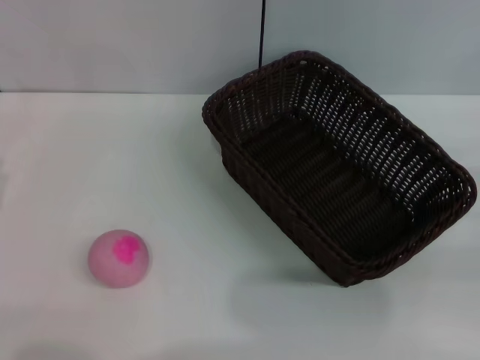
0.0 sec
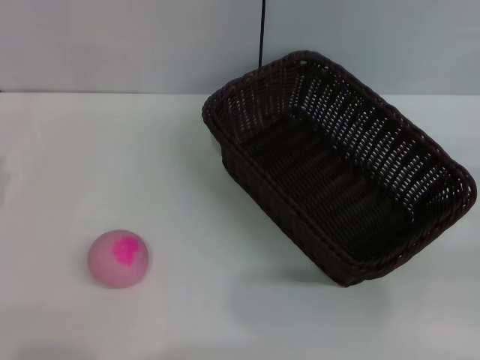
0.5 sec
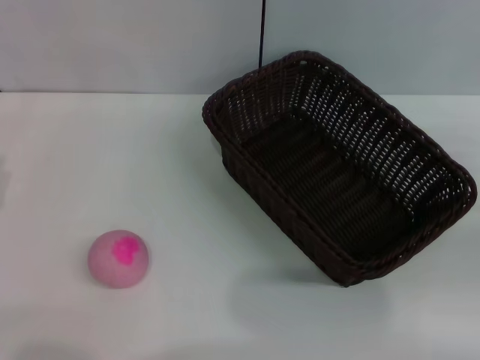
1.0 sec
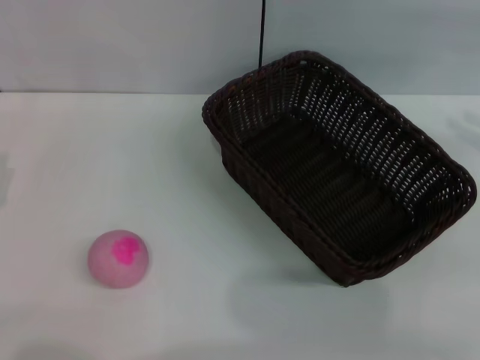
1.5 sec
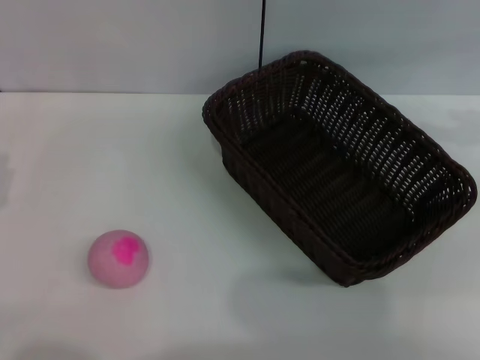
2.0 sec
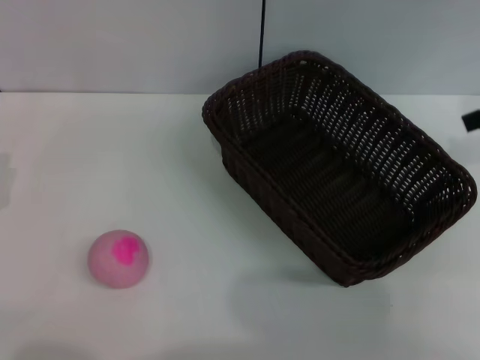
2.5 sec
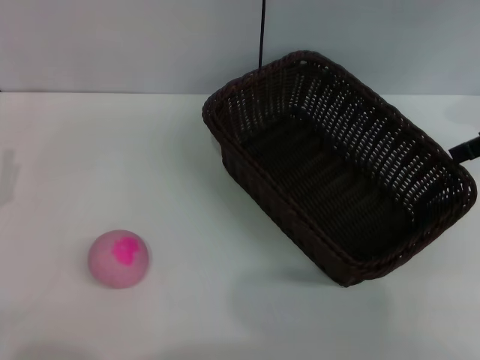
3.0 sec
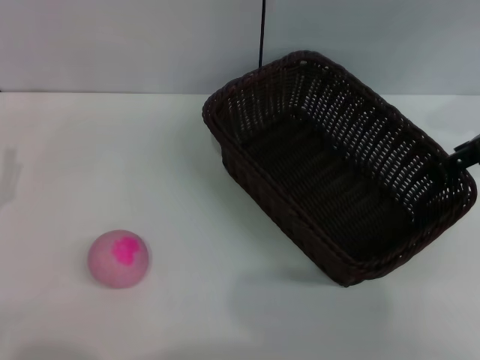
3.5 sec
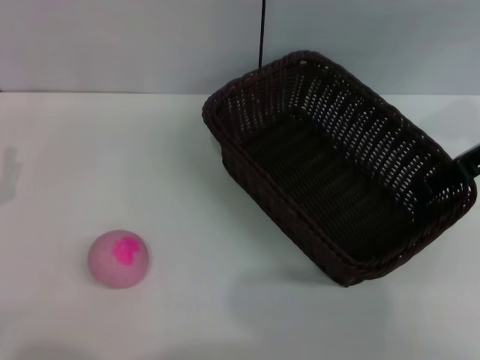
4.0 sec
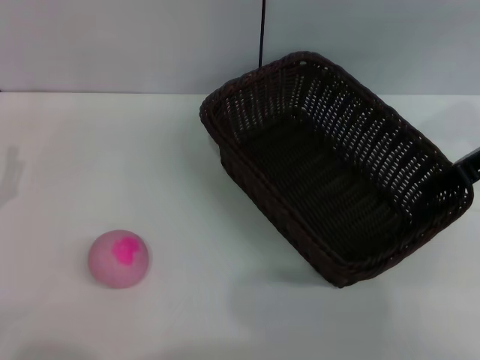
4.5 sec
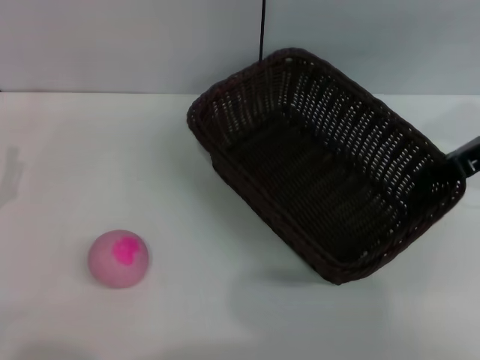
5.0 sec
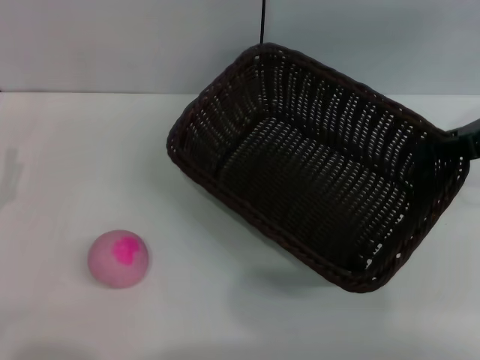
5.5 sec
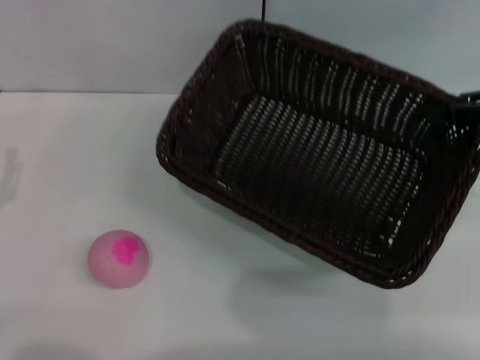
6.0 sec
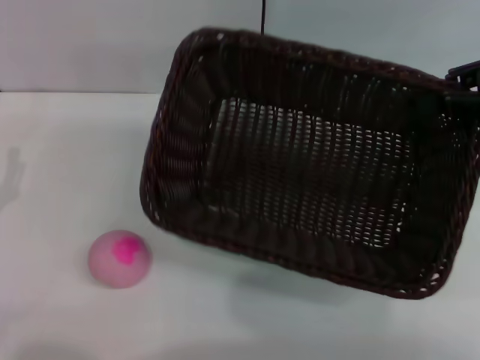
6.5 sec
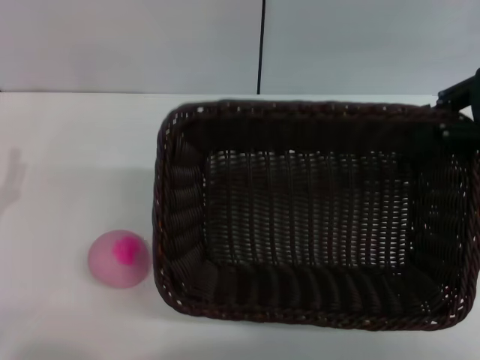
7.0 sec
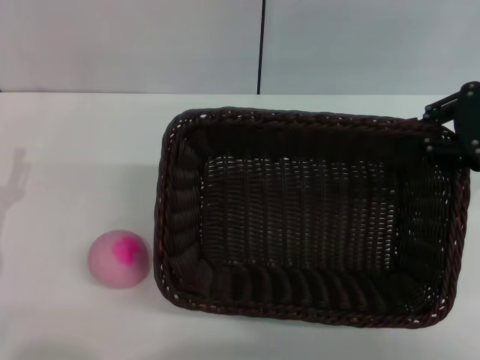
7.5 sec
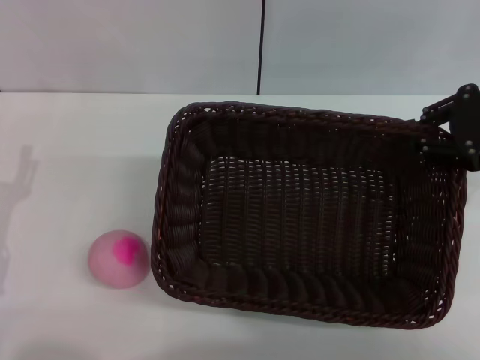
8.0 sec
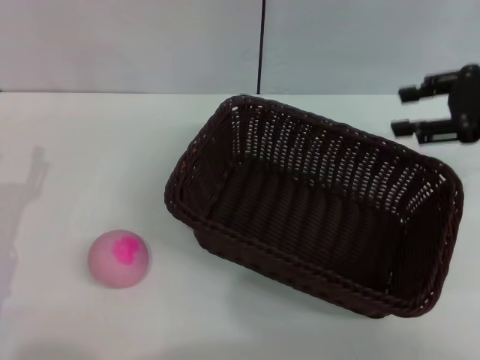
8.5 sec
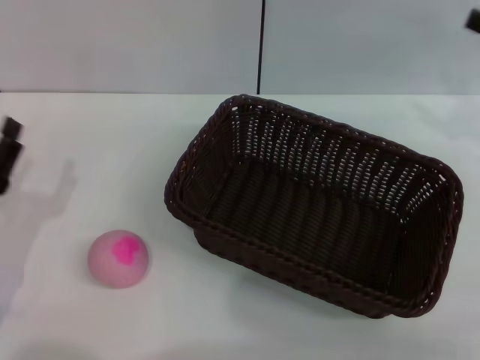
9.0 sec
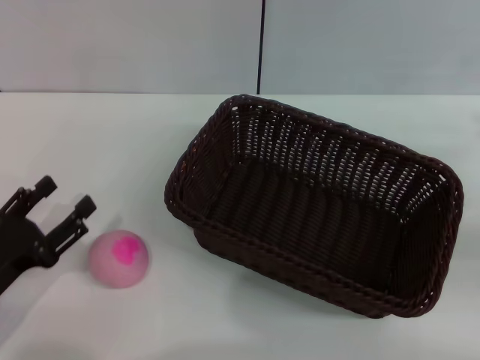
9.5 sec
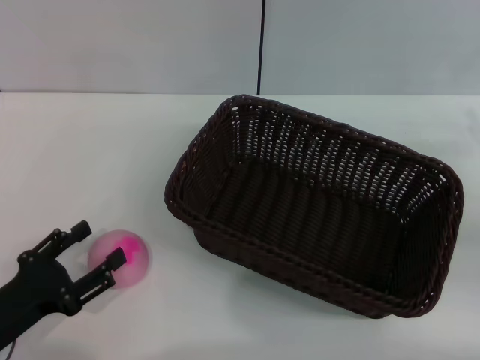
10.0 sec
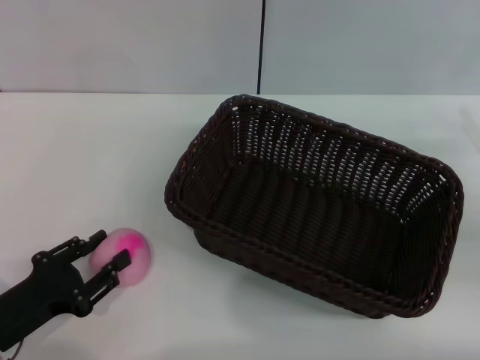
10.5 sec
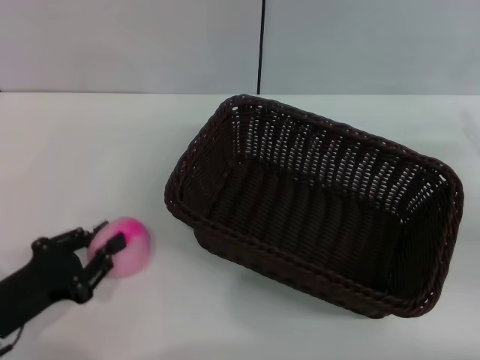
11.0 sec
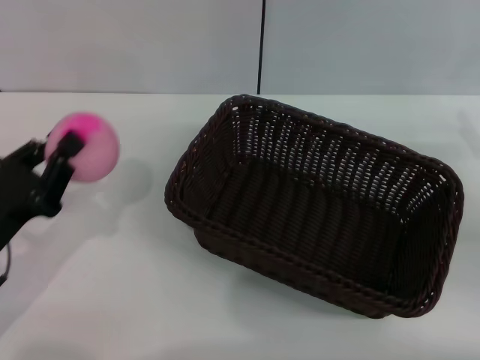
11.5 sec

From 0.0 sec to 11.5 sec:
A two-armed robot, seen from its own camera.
Step, from 0.0 sec to 5.5 sec: Pick up the dark basket with the right gripper.
Step, from 6.0 sec to 8.5 sec: Place the dark basket in the center of view with the right gripper.
Step, from 9.0 sec to 11.0 sec: Pick up the peach with the left gripper.
From 0.0 sec to 2.0 sec: The right gripper goes roughly 25 cm upward and forward, and opens.
From 4.0 sec to 6.0 sec: The right gripper shifts by about 5 cm, and closes its fingers.
From 7.5 sec to 9.5 sec: The right gripper goes about 15 cm downward, backward and to the right, and opens.
From 9.5 sec to 11.5 sec: The left gripper closes its fingers.

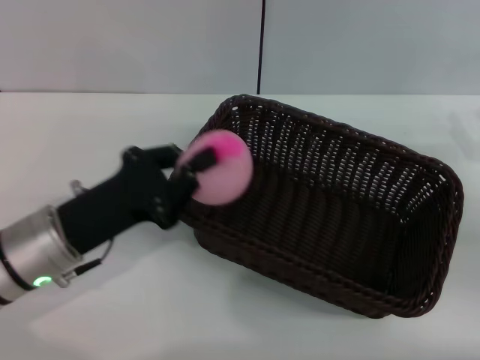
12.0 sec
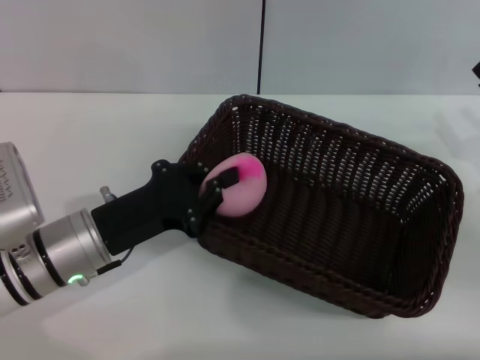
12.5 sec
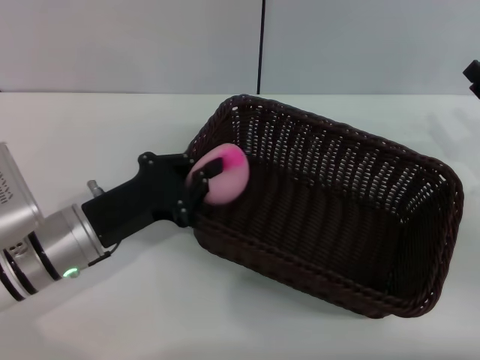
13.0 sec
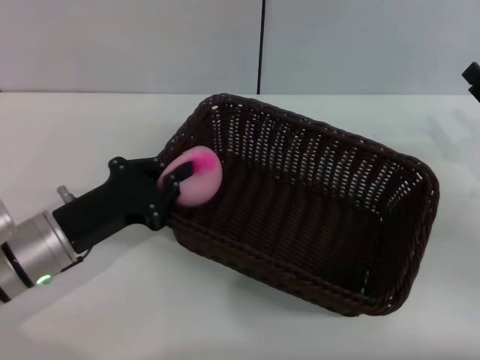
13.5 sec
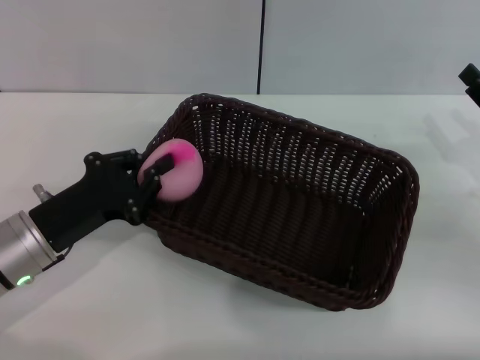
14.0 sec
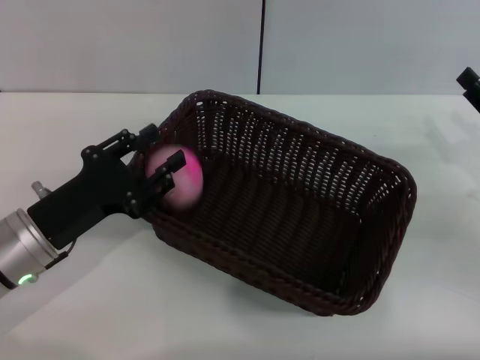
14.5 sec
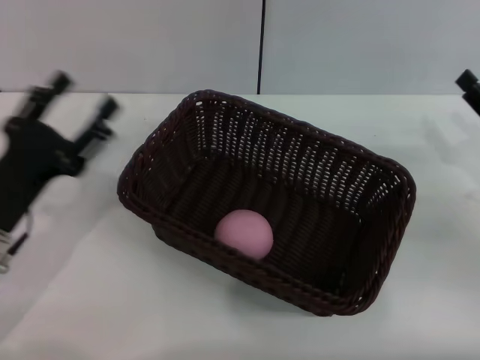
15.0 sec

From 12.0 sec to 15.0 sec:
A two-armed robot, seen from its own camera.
Step, from 12.0 sec to 14.5 sec: Place the peach into the basket with the left gripper.
From 12.0 sec to 13.5 sec: The grippers stay close to where they were, moving slightly.
From 13.5 sec to 15.0 sec: The left gripper opens.

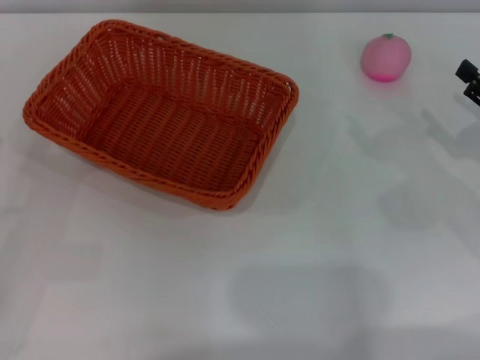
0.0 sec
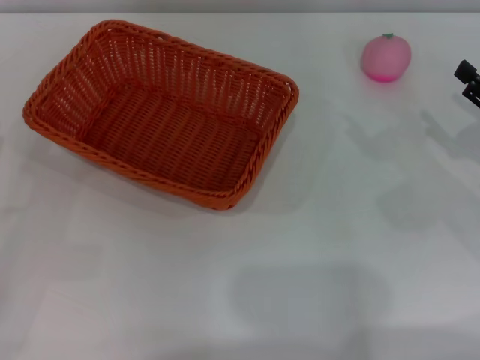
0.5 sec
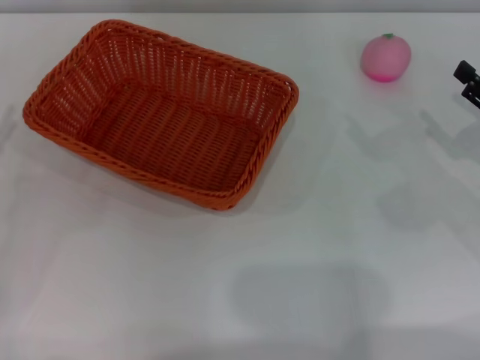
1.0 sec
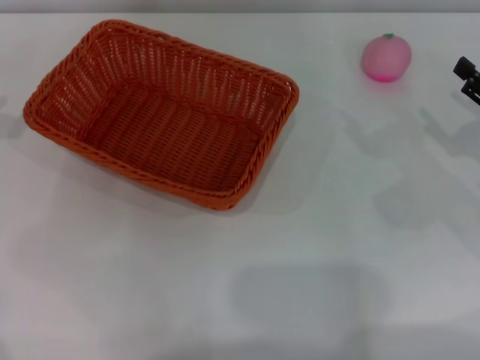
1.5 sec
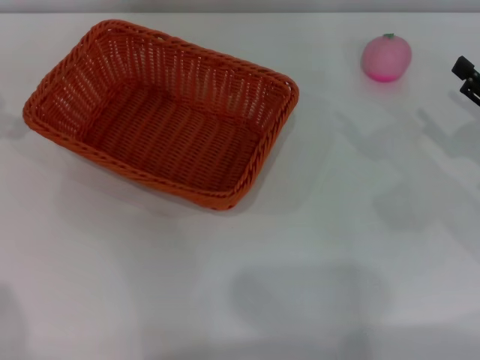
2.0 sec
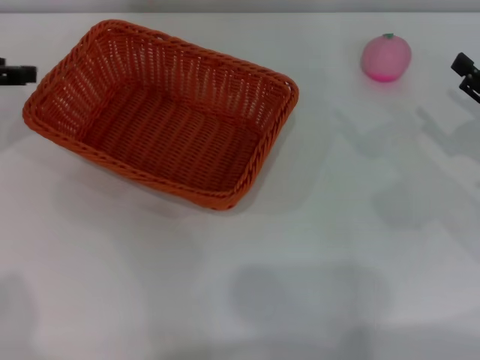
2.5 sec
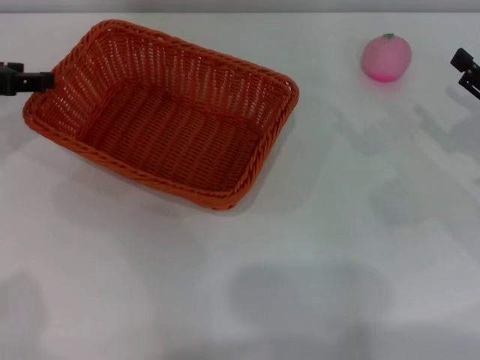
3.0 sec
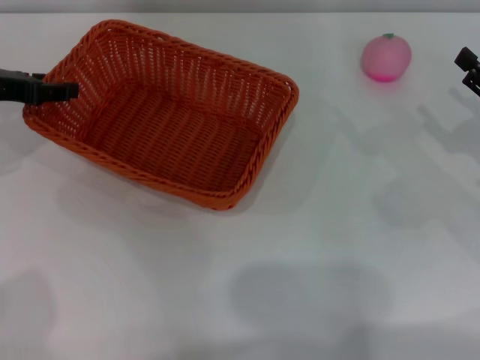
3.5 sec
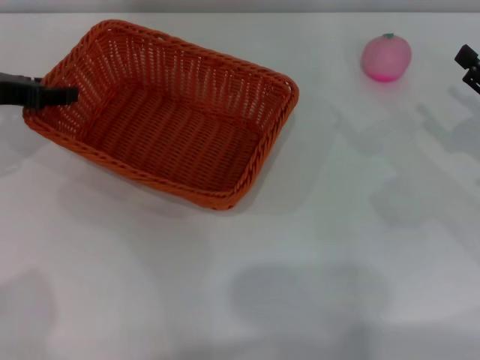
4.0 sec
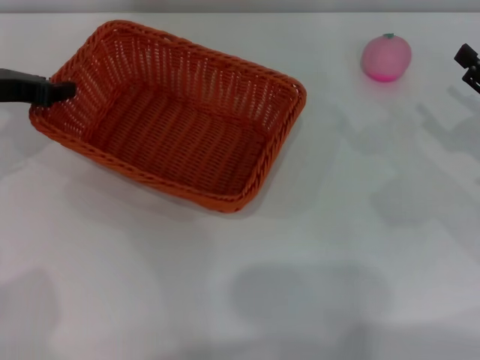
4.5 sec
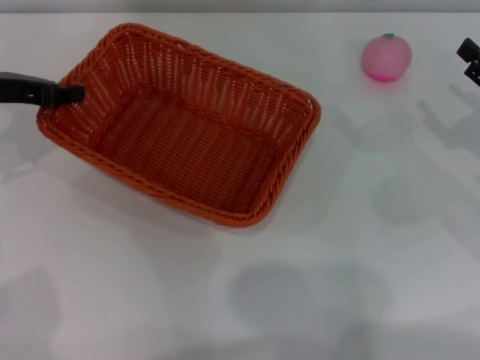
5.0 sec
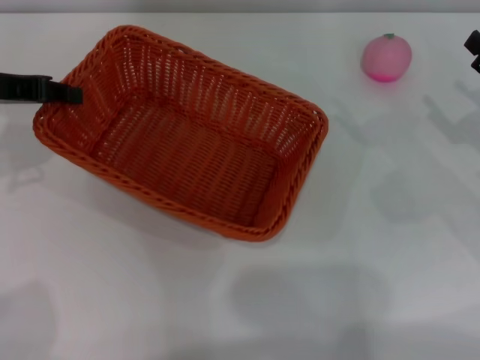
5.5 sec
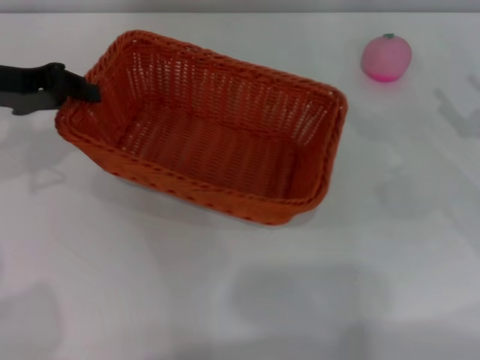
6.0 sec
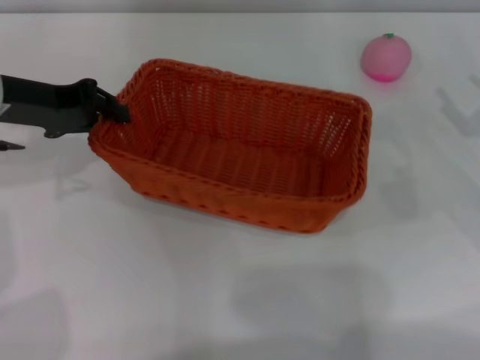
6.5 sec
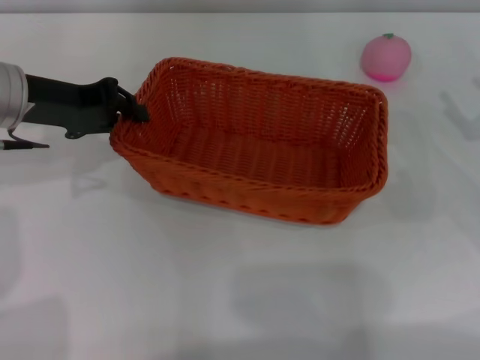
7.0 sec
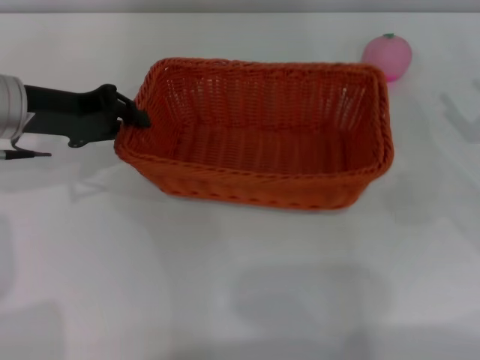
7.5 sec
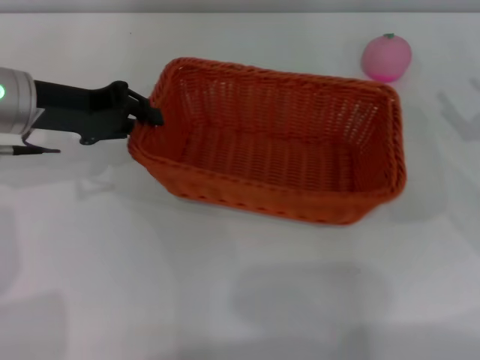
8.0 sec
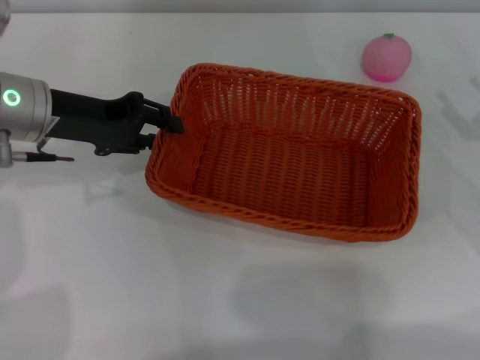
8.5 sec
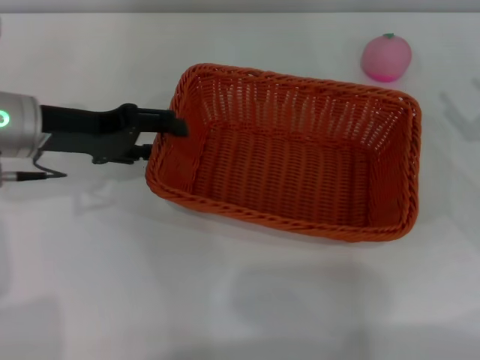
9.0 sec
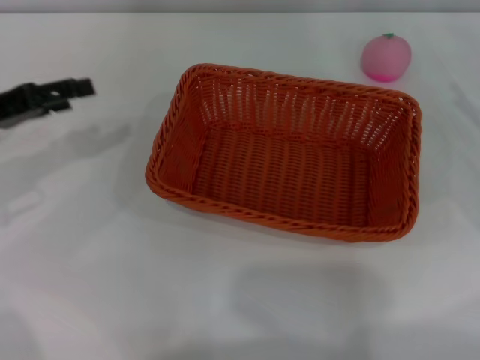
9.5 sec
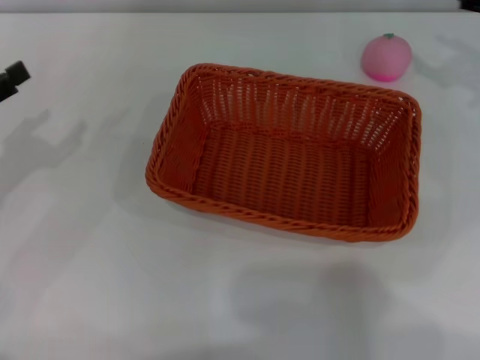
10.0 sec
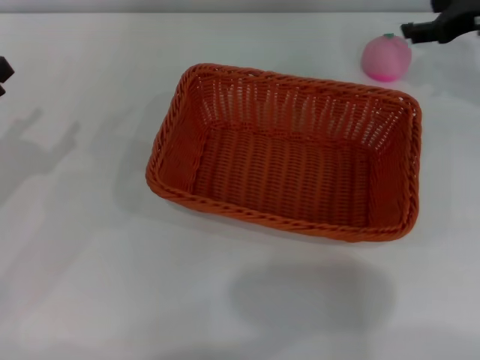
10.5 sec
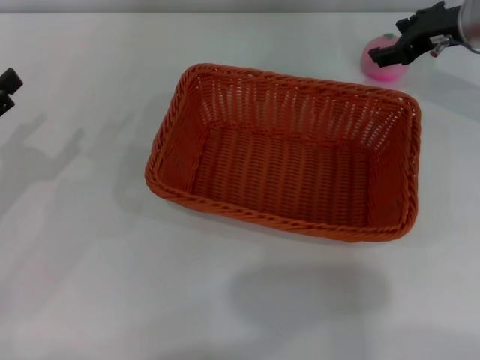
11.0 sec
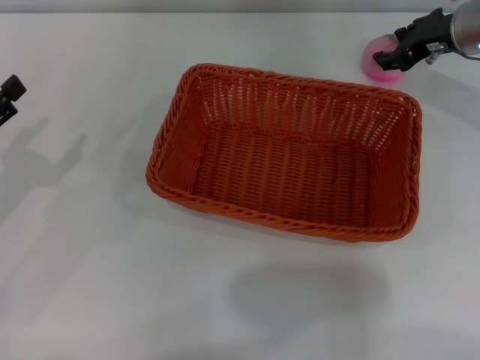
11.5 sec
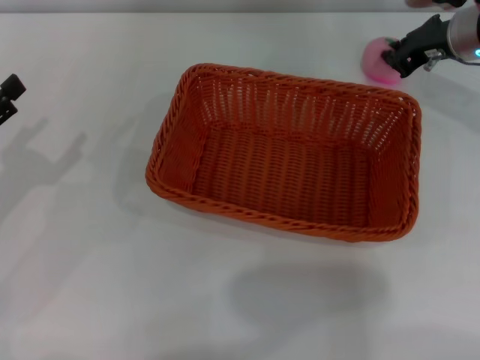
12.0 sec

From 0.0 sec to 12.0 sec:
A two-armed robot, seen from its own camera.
Step, from 0.0 sec to 5.5 sec: Pick up the light basket with the left gripper.
Step, from 6.0 sec to 9.0 sec: Place the light basket in the center of view with the right gripper.
From 2.0 sec to 4.0 sec: The left gripper is displaced downward and to the right by roughly 10 cm.
From 4.0 sec to 6.0 sec: The left gripper ends up roughly 5 cm from where it was, and closes up.
From 6.0 sec to 8.0 sec: The left gripper shifts by about 5 cm.
From 8.0 sec to 10.0 sec: The right gripper heads forward and upward, covering approximately 15 cm. The left gripper travels to the left and backward by approximately 15 cm, and opens up.
From 10.0 sec to 12.0 sec: The right gripper shifts approximately 10 cm to the left and forward, and closes its fingers.
